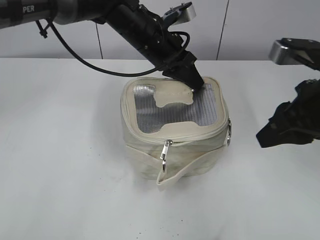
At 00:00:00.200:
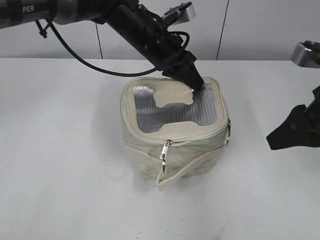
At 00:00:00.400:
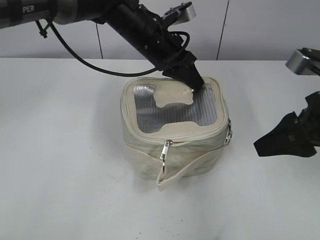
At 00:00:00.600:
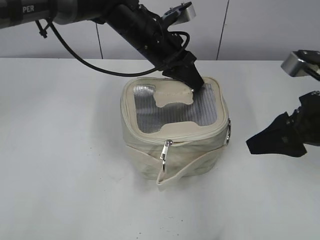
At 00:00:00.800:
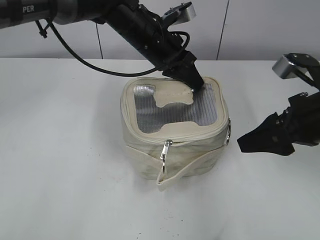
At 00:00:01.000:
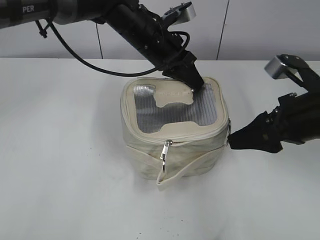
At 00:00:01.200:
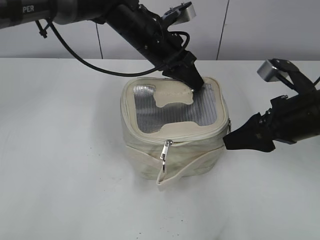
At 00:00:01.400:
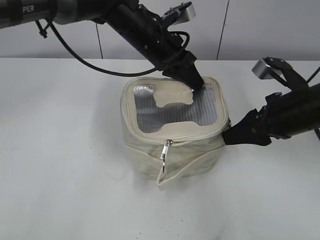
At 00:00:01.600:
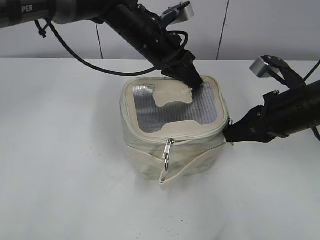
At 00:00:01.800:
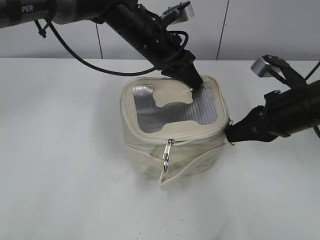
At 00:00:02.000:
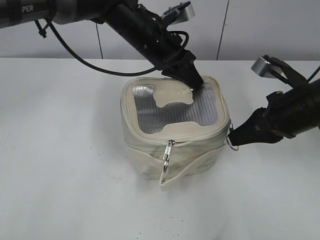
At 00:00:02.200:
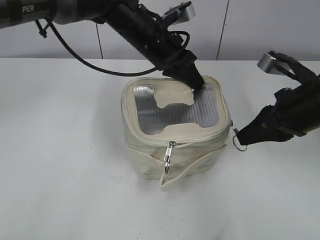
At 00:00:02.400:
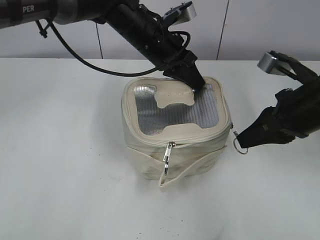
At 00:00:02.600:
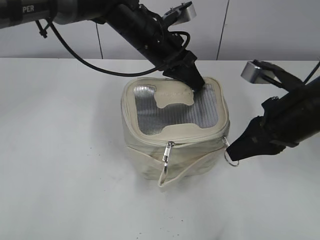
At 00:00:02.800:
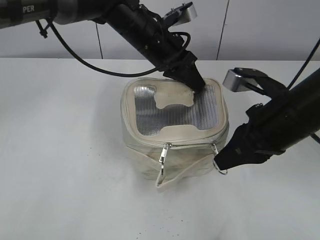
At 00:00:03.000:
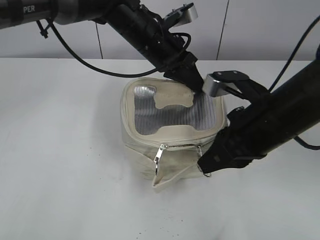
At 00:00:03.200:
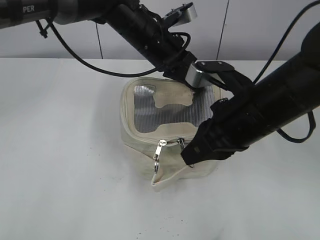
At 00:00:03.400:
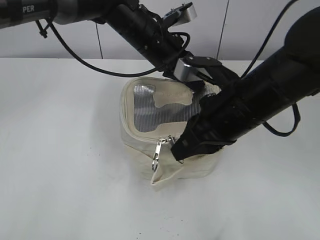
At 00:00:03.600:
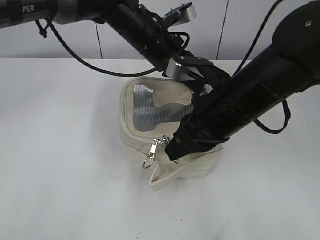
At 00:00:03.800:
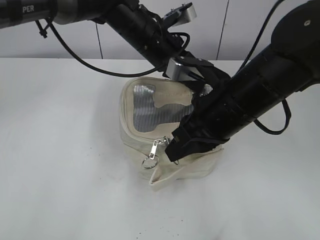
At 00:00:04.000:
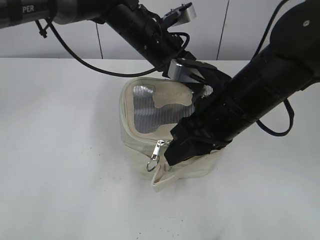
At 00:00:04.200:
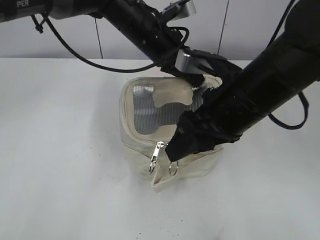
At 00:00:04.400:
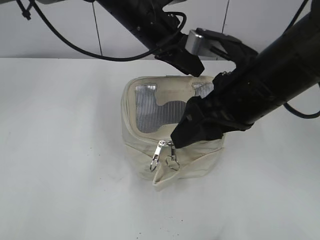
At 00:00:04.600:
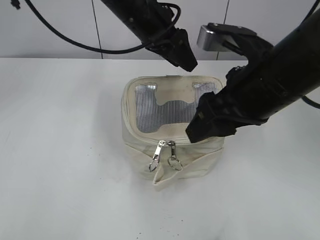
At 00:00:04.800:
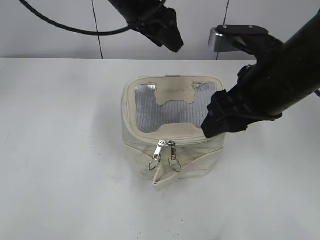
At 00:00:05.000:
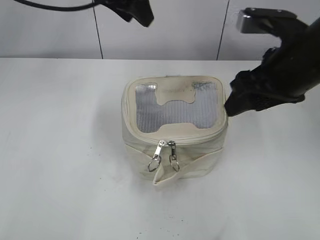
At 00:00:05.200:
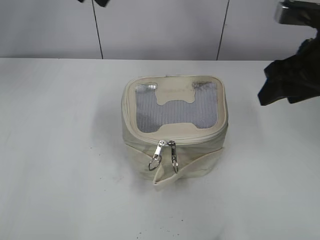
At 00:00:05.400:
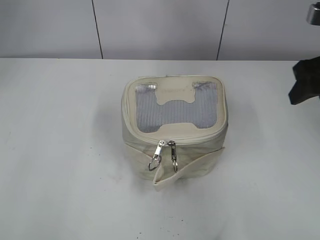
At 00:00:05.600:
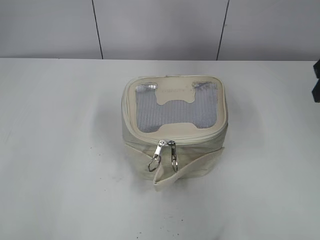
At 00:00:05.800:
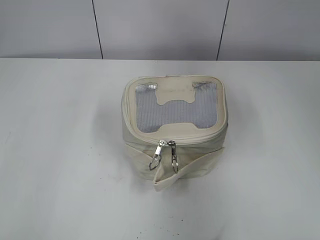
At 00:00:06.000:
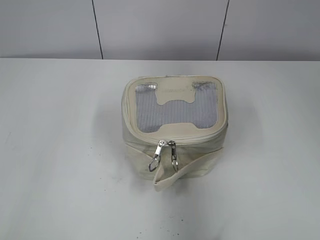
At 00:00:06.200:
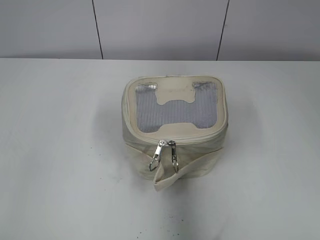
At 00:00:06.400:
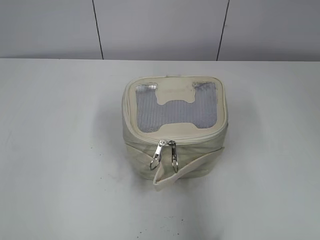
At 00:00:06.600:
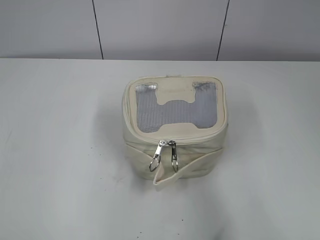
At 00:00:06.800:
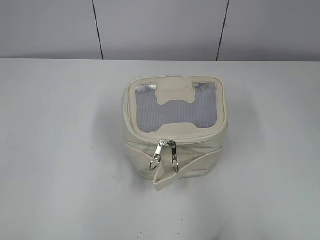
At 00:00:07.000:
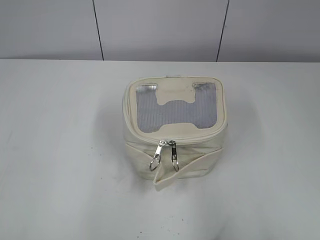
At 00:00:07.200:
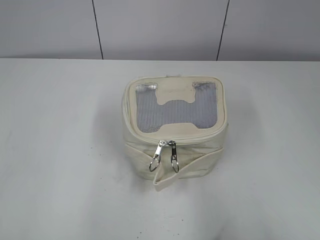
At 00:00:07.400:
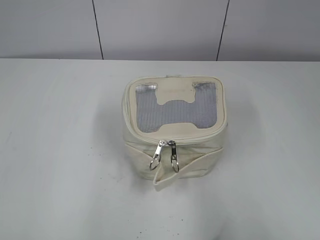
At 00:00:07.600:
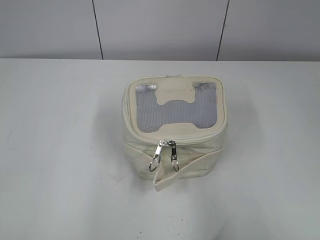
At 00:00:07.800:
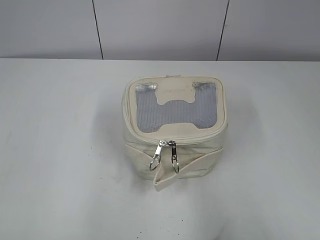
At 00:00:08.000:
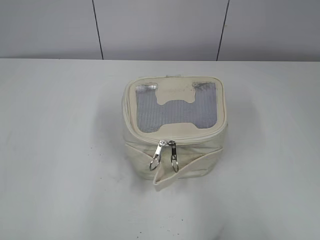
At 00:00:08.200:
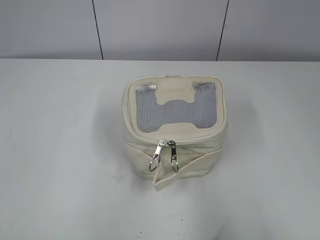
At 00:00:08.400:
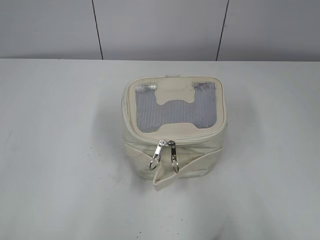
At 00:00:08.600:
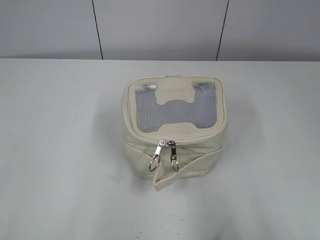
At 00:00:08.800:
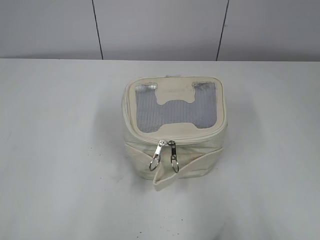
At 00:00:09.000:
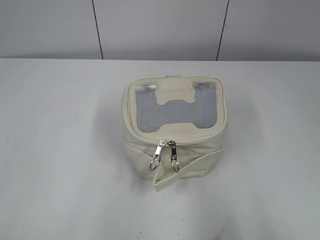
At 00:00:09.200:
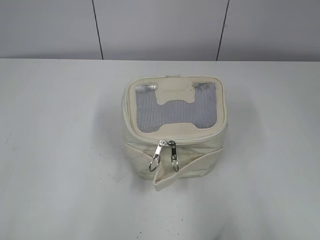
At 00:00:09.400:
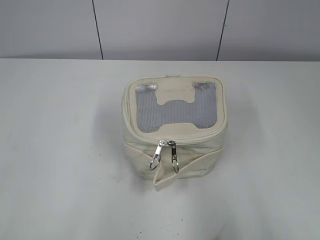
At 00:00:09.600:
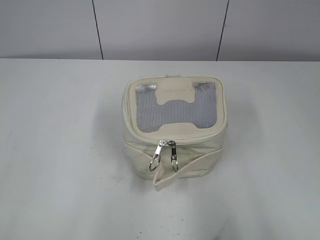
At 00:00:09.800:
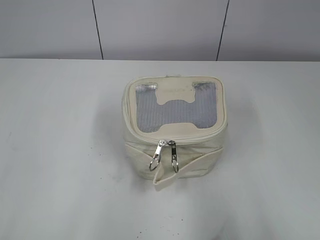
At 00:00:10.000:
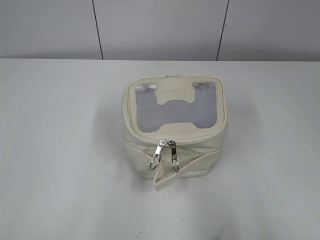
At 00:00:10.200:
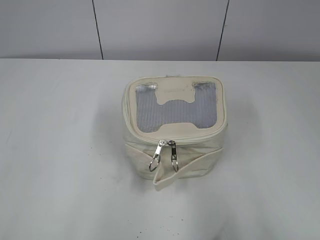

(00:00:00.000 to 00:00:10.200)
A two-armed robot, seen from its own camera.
Step, 00:00:00.000 - 00:00:04.000: Zip up the bag with your right hand.
Step, 00:00:04.200 - 00:00:04.400: Hold the bag with your left hand.
00:00:00.000 - 00:00:01.400: The right gripper shifts some 5 cm downward, and opens its fingers.
00:00:01.400 - 00:00:03.000: The right gripper shifts approximately 10 cm to the left, and closes its fingers.
00:00:03.000 - 00:00:04.400: The left gripper opens its fingers; the right gripper is displaced upward by some 5 cm, and opens up.
00:00:04.400 - 00:00:05.800: The right gripper moves to the right, some 15 cm, while the left gripper goes roughly 30 cm to the left and upward.
00:00:05.800 - 00:00:07.200: The right gripper heads backward, covering approximately 25 cm, while the left gripper travels backward and downward by some 35 cm.
00:00:08.800 - 00:00:10.200: Both grippers stay put.

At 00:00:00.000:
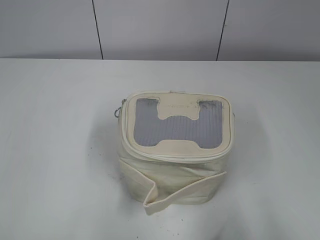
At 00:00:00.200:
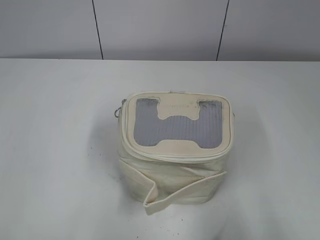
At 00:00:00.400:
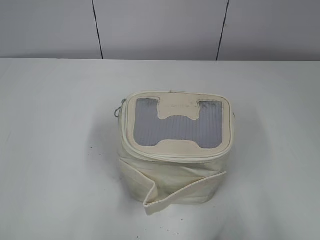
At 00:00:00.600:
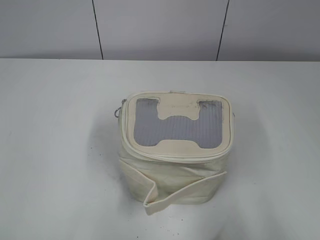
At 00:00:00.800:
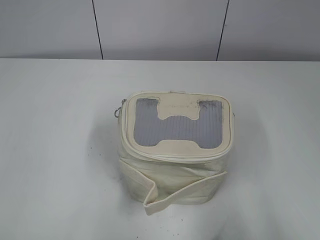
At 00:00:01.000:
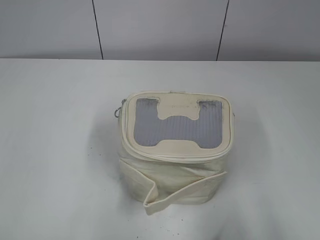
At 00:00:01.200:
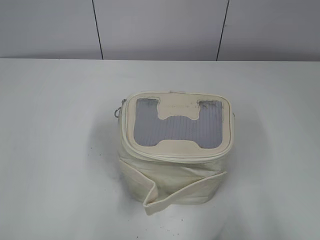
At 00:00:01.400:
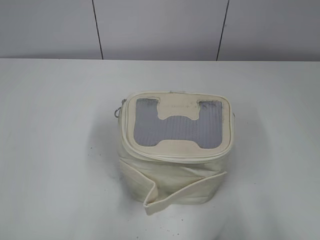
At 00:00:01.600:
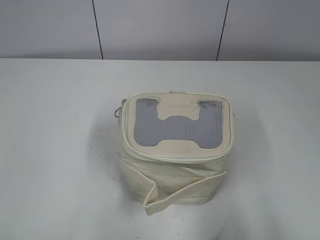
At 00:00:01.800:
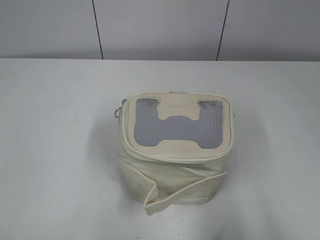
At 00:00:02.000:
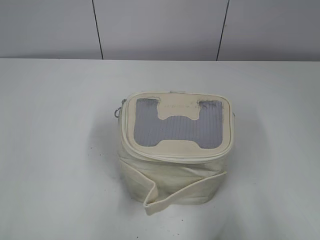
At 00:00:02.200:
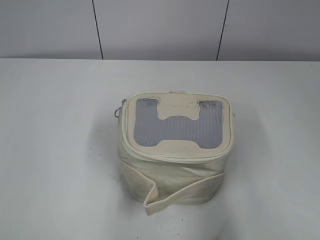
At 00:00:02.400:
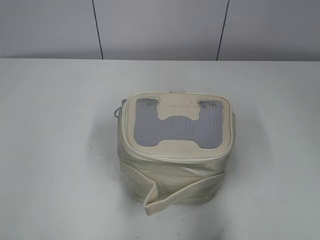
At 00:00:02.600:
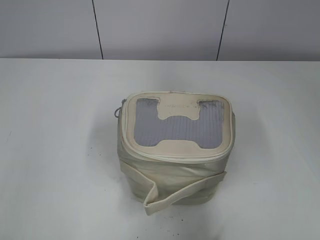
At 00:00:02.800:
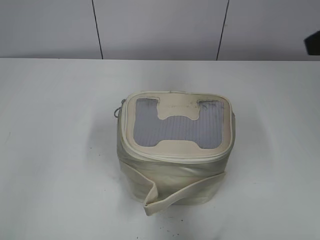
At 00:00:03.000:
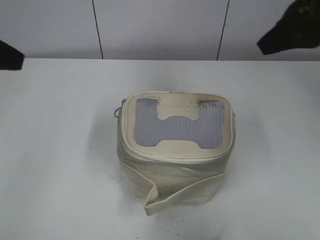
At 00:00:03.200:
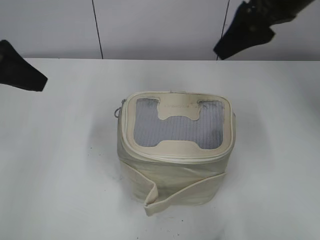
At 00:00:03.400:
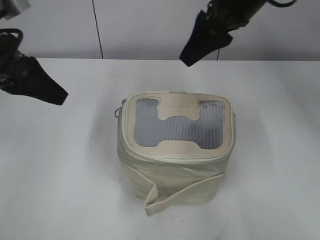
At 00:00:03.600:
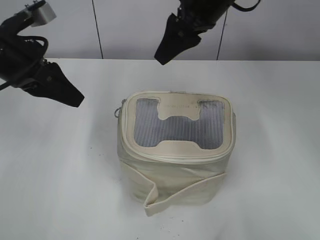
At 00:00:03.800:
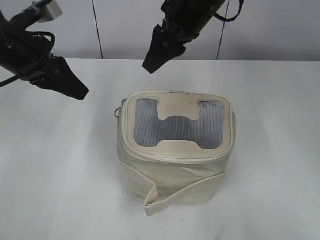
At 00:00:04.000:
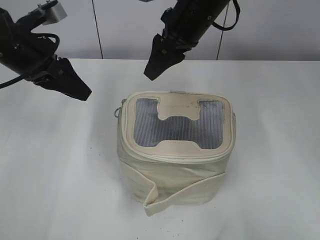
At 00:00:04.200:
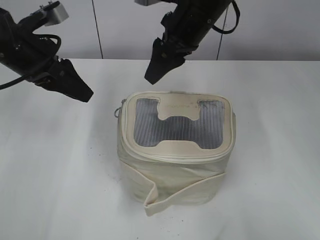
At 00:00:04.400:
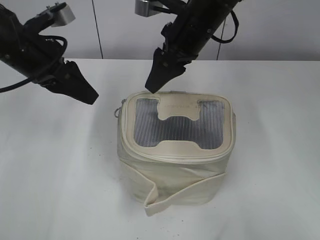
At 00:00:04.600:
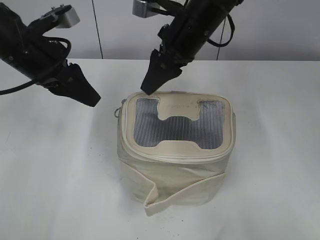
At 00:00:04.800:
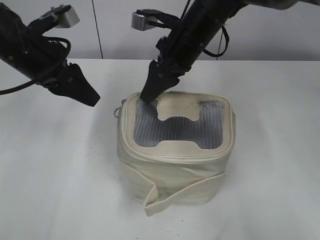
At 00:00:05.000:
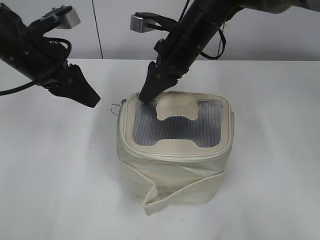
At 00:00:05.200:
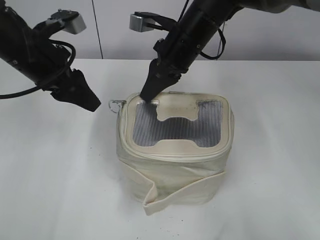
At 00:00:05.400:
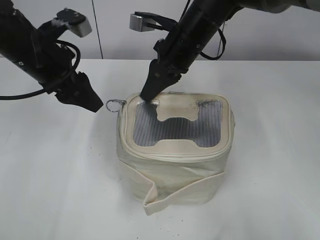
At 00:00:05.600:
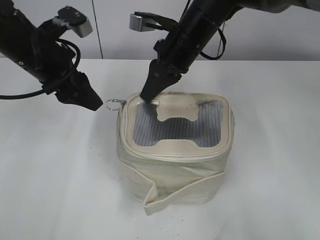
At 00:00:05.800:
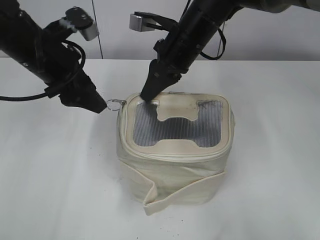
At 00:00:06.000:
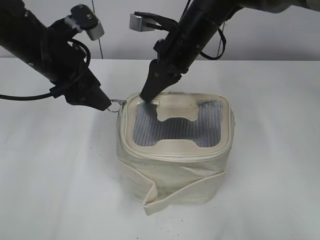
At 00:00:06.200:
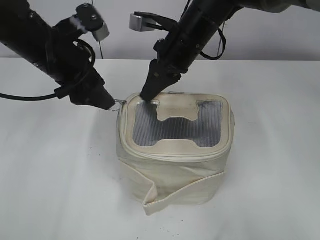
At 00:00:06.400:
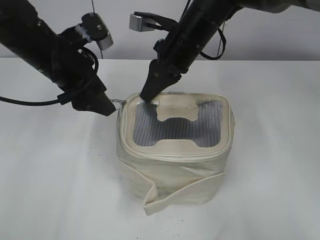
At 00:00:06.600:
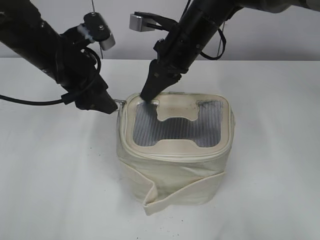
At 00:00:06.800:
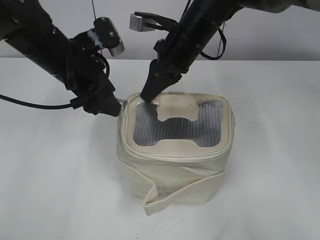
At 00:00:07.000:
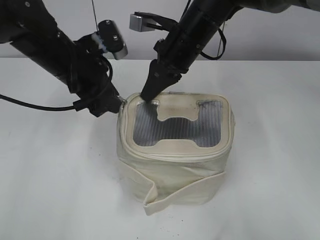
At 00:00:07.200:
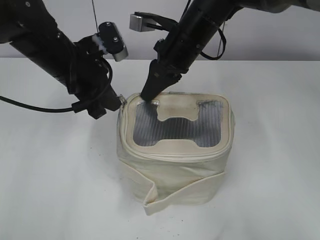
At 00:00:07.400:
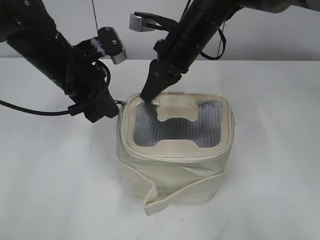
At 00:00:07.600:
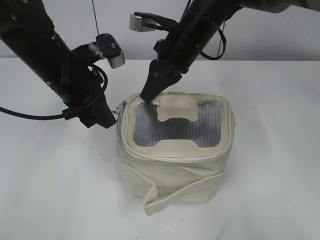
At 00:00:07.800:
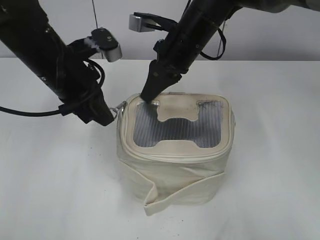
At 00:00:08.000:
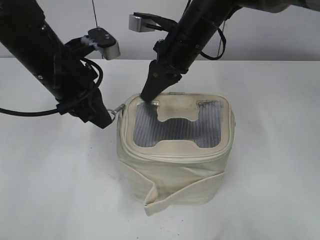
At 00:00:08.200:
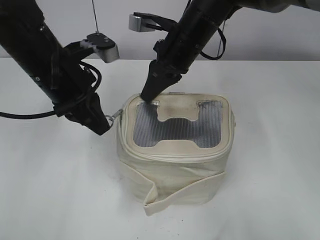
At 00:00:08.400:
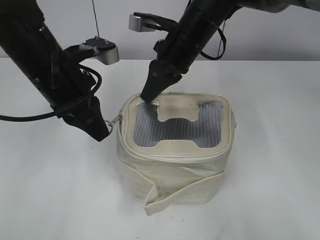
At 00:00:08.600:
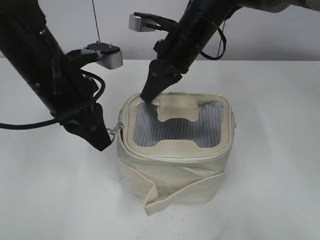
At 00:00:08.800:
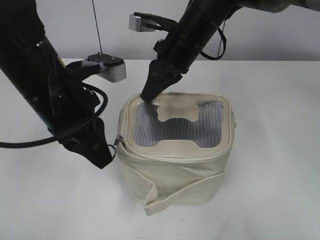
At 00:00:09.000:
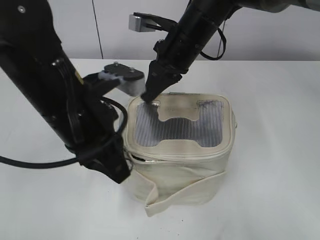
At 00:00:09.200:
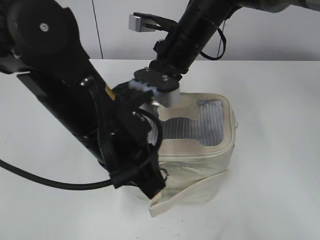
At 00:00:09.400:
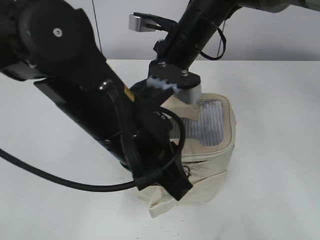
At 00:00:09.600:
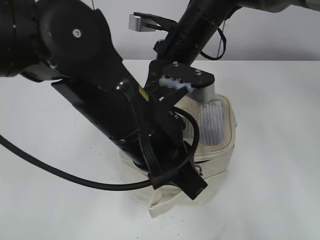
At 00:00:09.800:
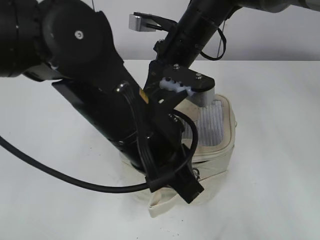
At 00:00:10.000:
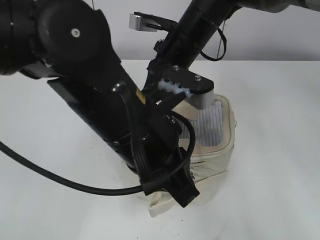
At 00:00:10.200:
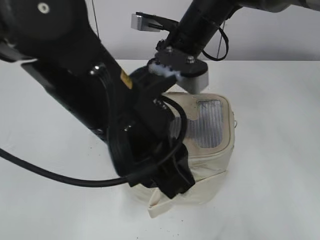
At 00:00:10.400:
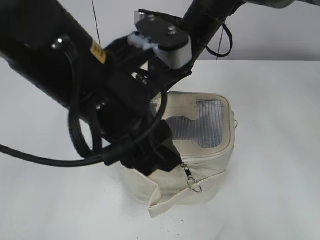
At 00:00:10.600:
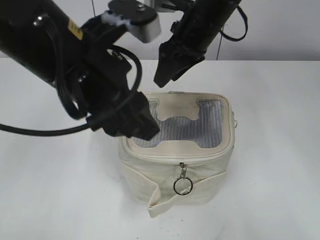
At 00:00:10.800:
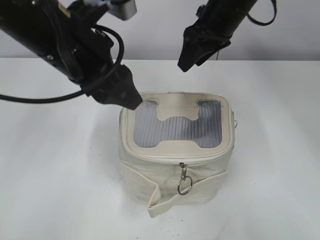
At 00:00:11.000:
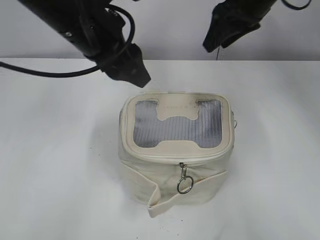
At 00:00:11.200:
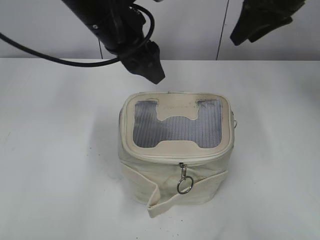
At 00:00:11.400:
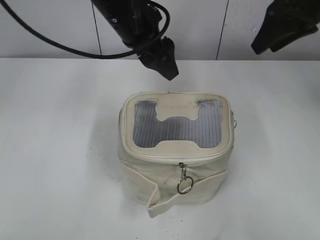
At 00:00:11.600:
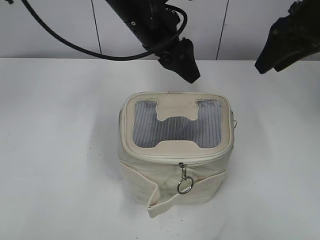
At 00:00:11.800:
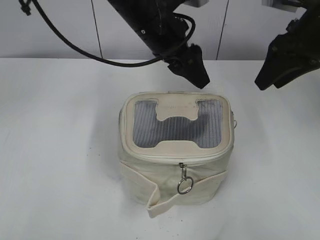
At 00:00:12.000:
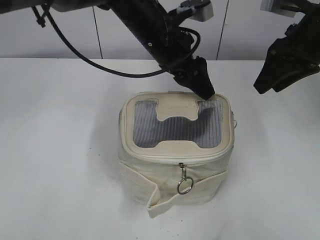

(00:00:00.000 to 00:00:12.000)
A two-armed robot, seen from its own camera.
Step, 00:00:00.000 - 00:00:10.000: Zip up the bag with your left hand.
00:00:01.600 - 00:00:03.000: Both grippers move forward, roughly 25 cm.
00:00:03.000 - 00:00:04.400: The right gripper travels to the left, forward and downward by some 20 cm. Meanwhile the left gripper moves forward, downward and to the right, roughly 15 cm.
00:00:04.400 - 00:00:06.000: The right gripper closes.
00:00:06.000 - 00:00:07.600: The left gripper closes up.
00:00:07.600 - 00:00:09.000: The left gripper goes approximately 10 cm backward.
00:00:09.000 - 00:00:10.400: The left gripper shifts about 5 cm upward, and opens up. Meanwhile the right gripper opens up.
00:00:10.400 - 00:00:12.000: The right gripper heads to the right, covering approximately 20 cm, while the left gripper heads forward, covering about 20 cm.
